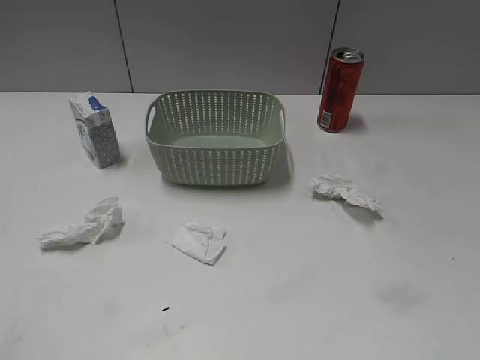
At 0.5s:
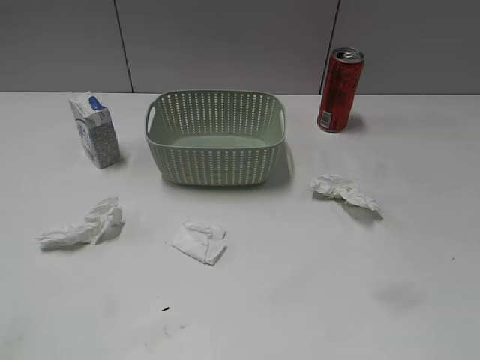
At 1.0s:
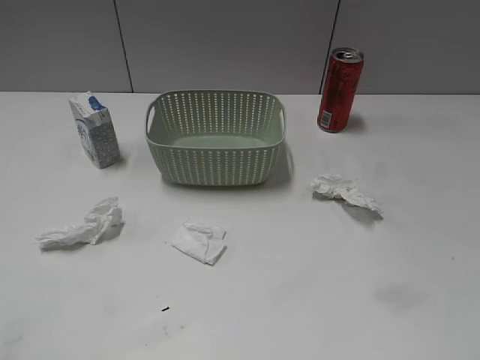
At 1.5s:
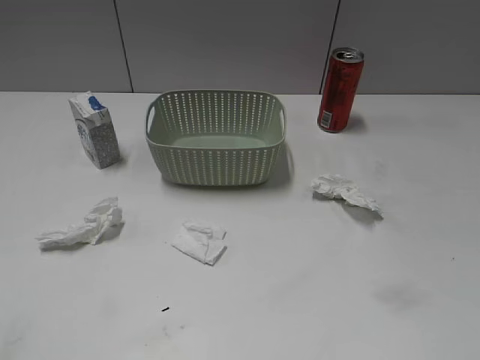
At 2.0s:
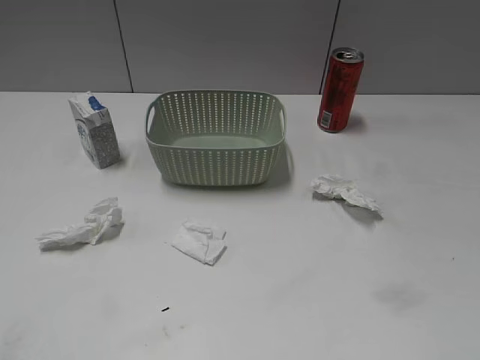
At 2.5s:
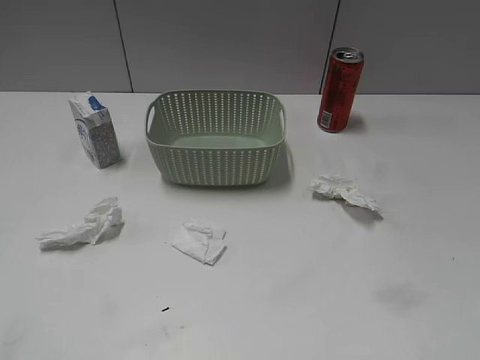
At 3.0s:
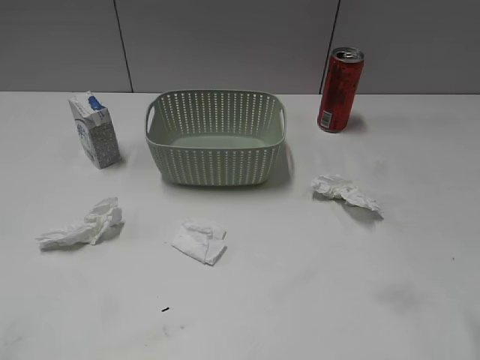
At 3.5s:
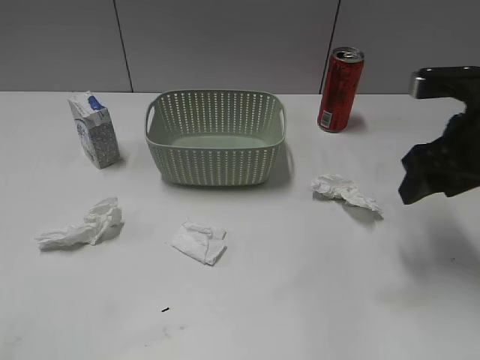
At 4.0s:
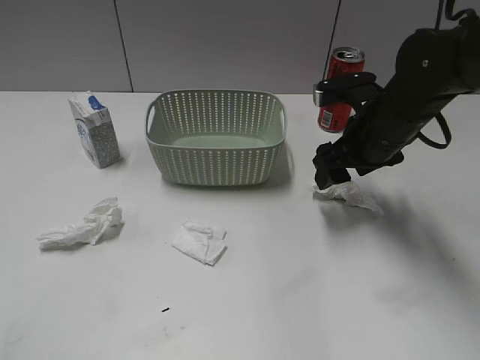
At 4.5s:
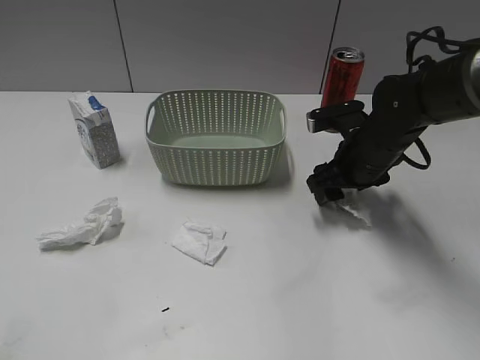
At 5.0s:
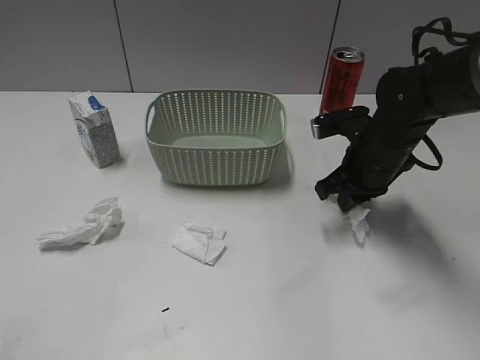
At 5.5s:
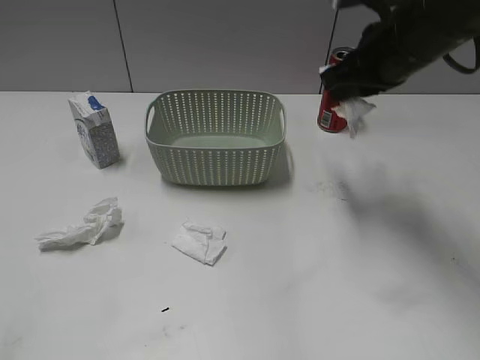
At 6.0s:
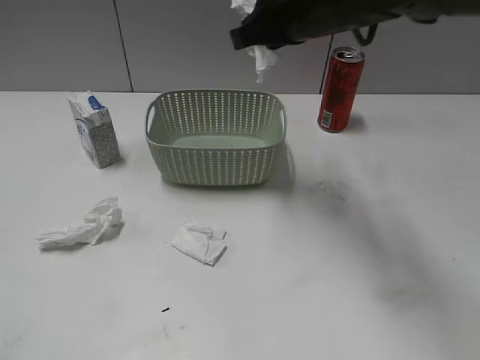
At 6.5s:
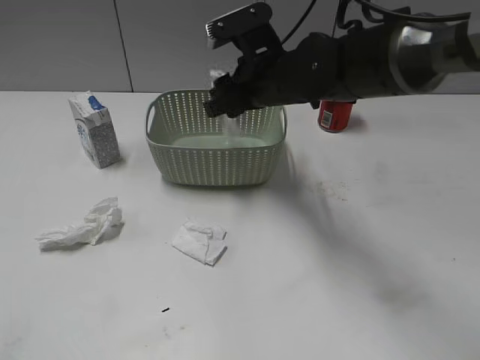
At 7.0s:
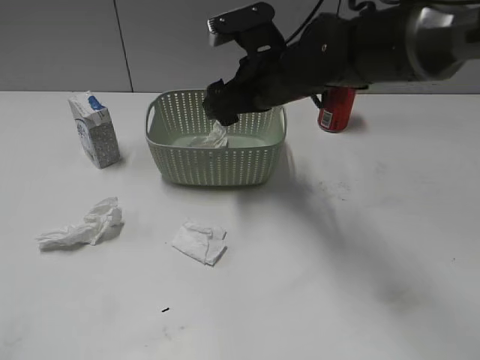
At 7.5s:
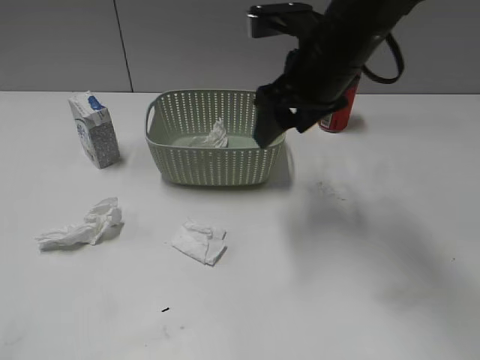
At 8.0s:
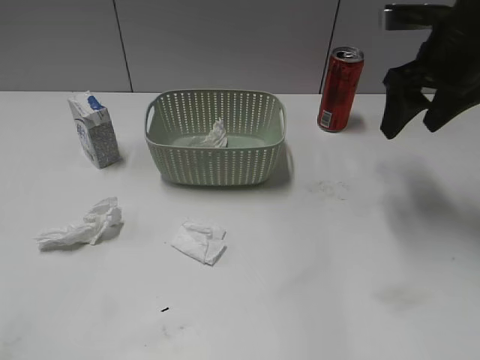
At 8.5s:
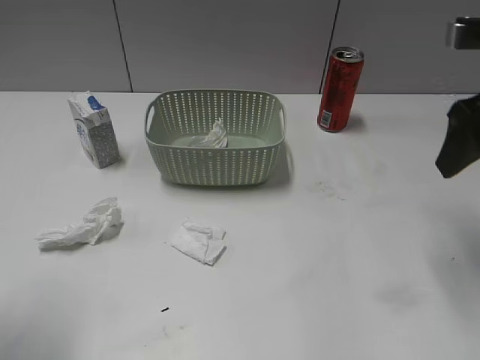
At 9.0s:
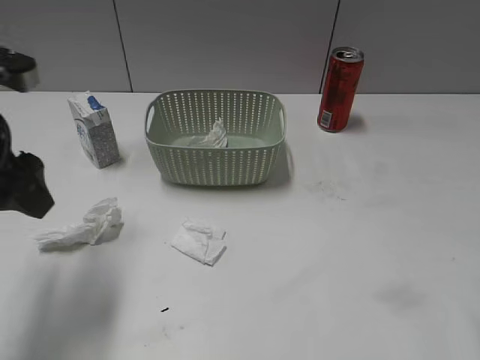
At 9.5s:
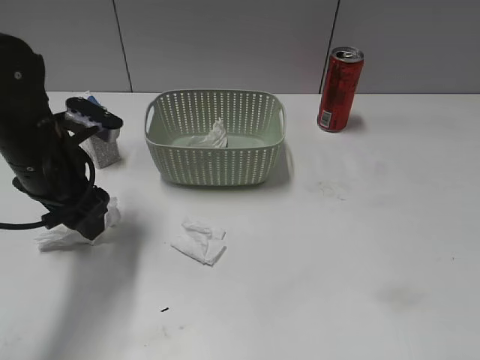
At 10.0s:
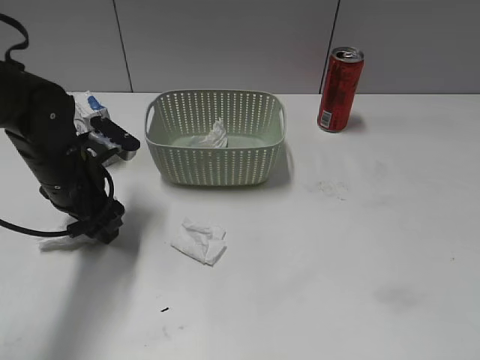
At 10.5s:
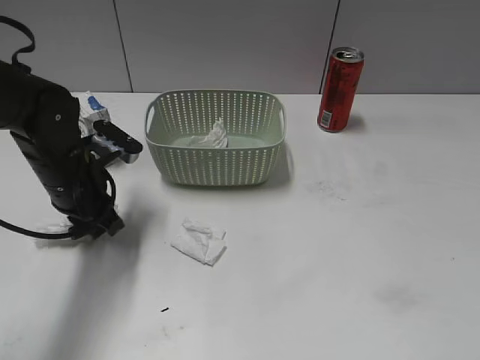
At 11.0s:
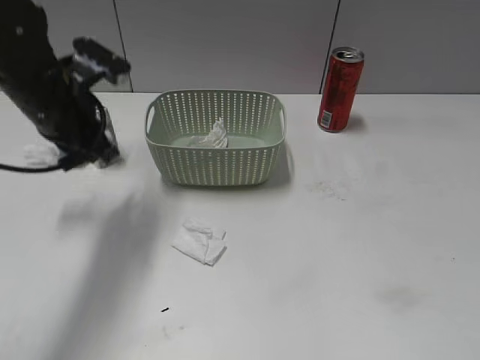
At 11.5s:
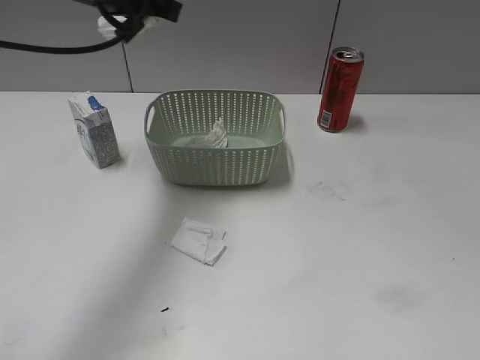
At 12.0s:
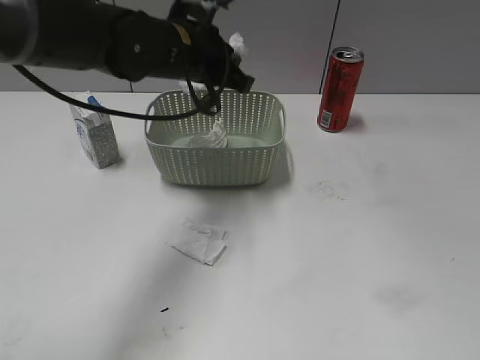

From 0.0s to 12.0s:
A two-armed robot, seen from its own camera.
Step, from 3.0s to 5.0s: Grasp the waste paper with right gripper.
Step, from 5.5s to 6.5s: Place the waste paper in the basket with right gripper.
Step, from 7.0s to 10.5s: Grasp the waste paper with left gripper.
From 2.0s to 4.0s: The right gripper is displaced forward by some 35 cm.
From 4.0s to 6.0s: The right gripper shifts roughly 15 cm upward and to the left, and closes.
From 6.0s to 8.0s: The right gripper shifts about 10 cm to the right, and opens.
From 8.0s to 10.0s: The right gripper goes approximately 35 cm backward. Meanwhile the left gripper moves forward, downward and to the right, approximately 35 cm.
From 10.0s to 12.0s: The left gripper moves to the right, upward and forward, some 20 cm, and closes its fingers.

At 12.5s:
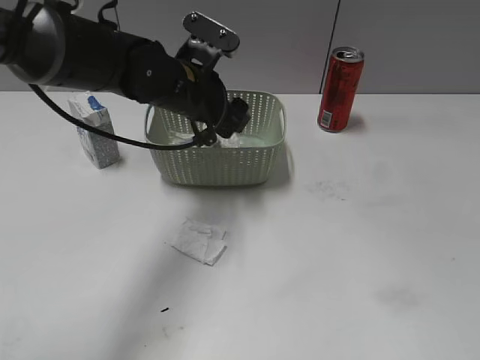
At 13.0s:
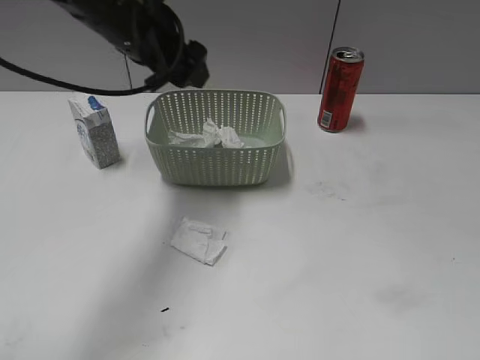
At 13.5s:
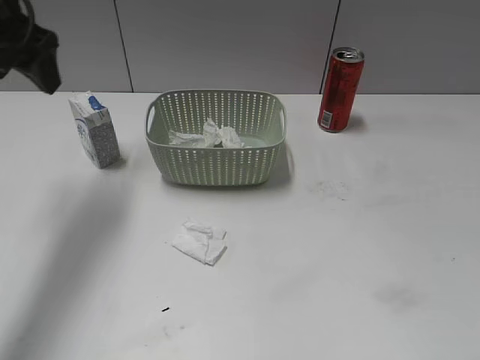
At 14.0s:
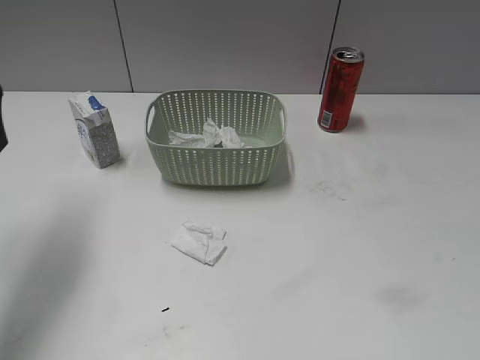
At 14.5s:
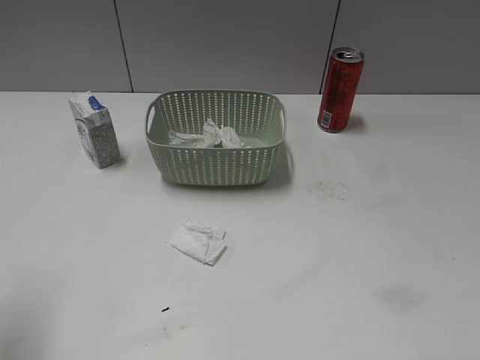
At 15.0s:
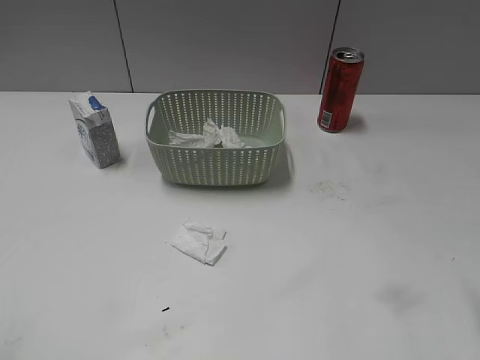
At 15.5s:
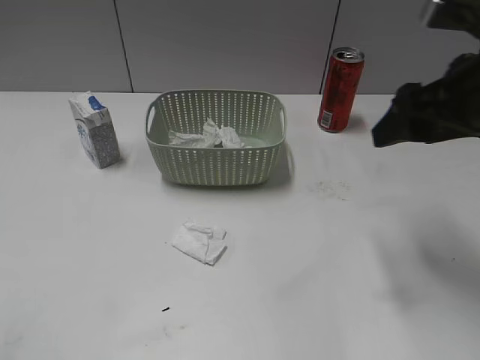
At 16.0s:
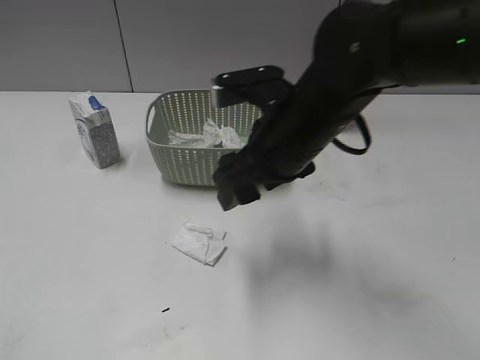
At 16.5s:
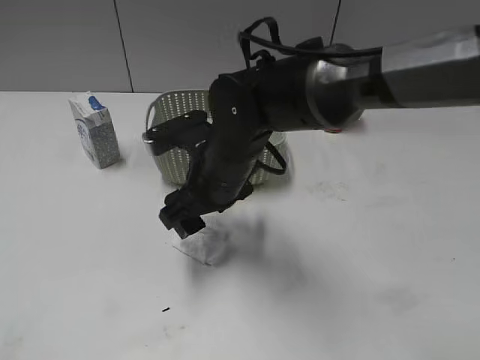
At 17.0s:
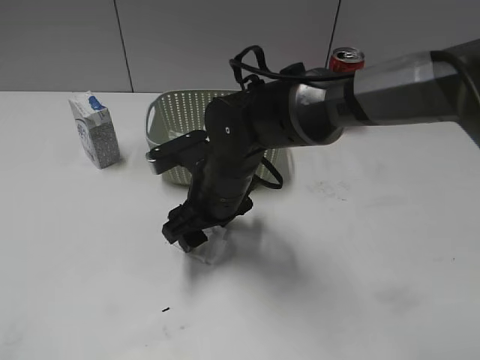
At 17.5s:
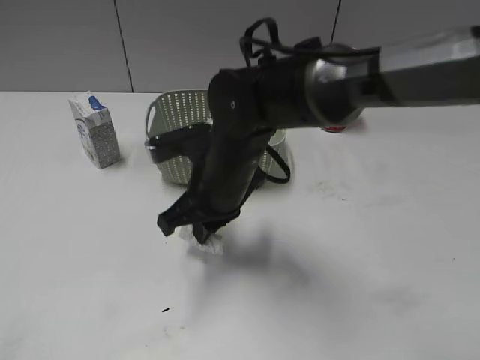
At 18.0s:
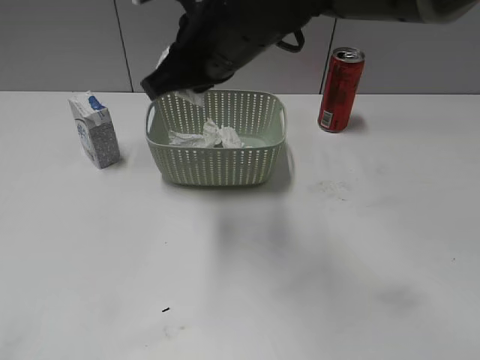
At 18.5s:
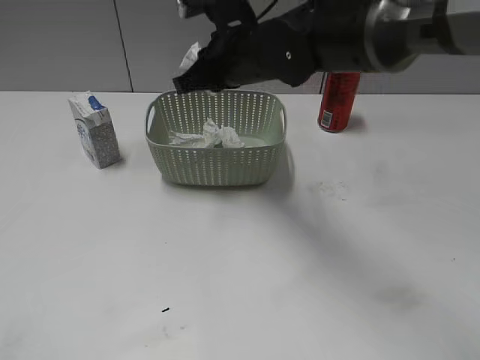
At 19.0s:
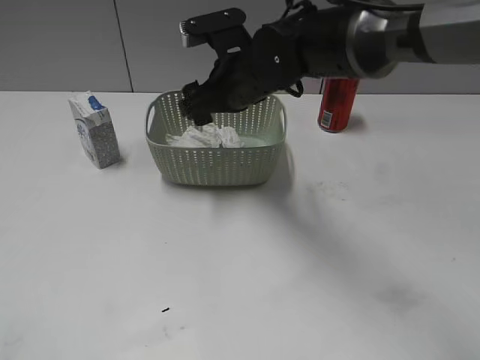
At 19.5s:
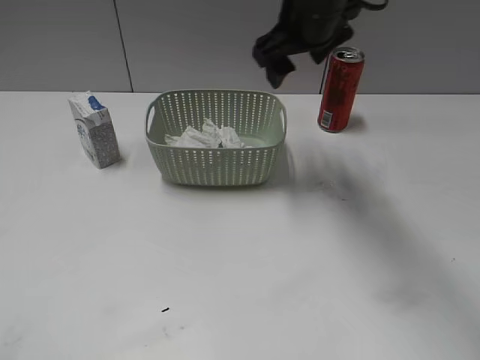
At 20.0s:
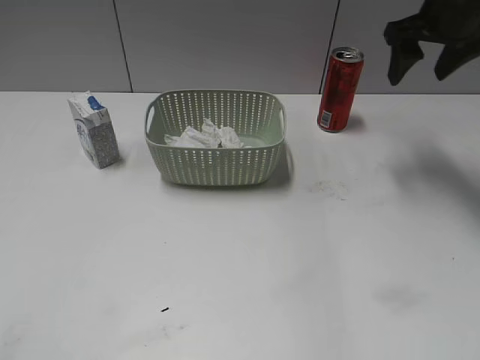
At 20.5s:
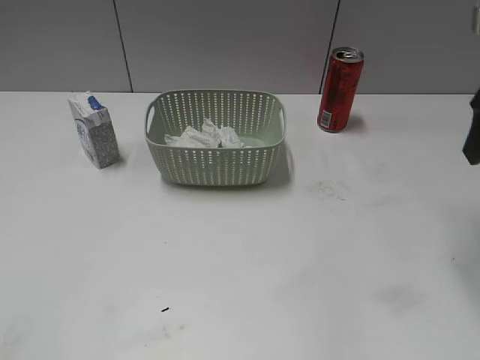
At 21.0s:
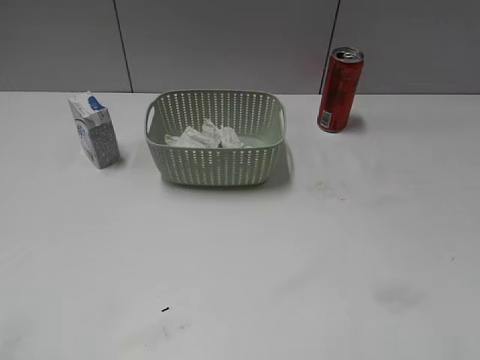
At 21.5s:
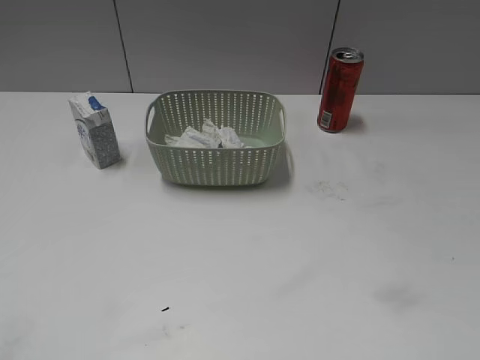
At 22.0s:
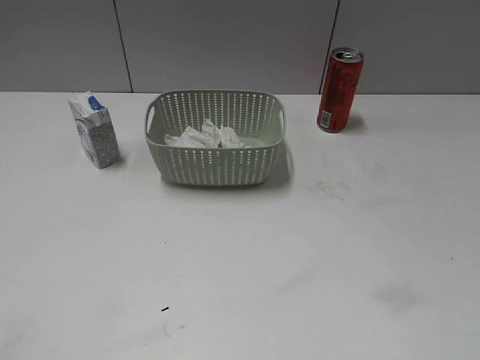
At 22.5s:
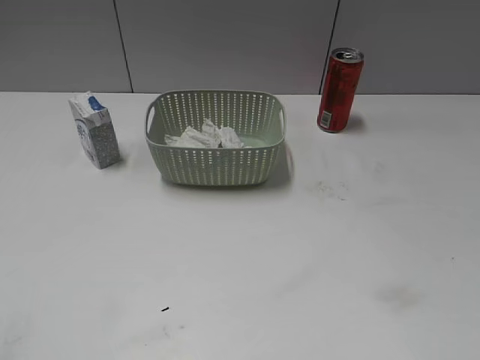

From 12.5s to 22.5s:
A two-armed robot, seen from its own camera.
Step, from 13.0s to 17.5s: Grasp the waste paper with right gripper.
Step, from 18.0s to 19.0s: Place the waste paper in the basket with right gripper.
From 12.5s to 14.5s: The left gripper travels to the left, backward and upward by about 35 cm.
From 14.5s to 16.5s: The left gripper heads backward, covering some 20 cm, while the right gripper goes roughly 40 cm to the left, forward and downward.
From 16.5s to 18.5s: The right gripper is displaced forward and upward by approximately 10 cm, and closes.
From 18.5s to 20.5s: The right gripper shifts approximately 25 cm to the right, and opens up.

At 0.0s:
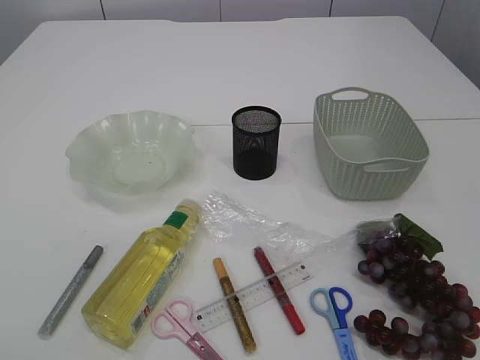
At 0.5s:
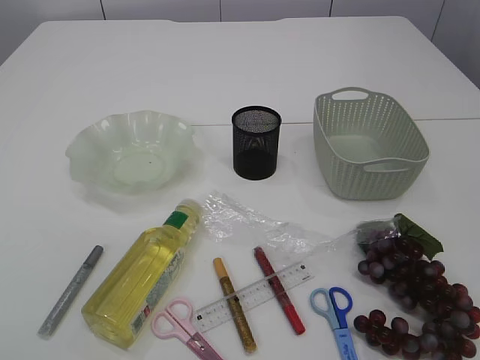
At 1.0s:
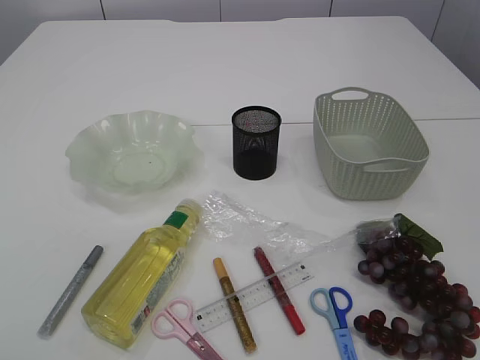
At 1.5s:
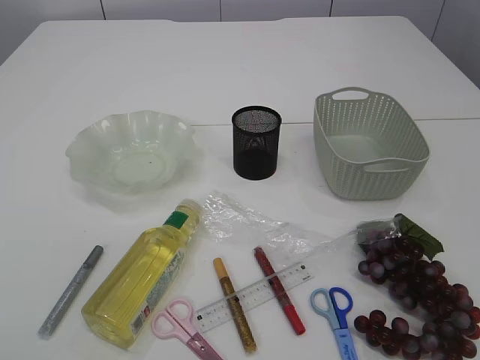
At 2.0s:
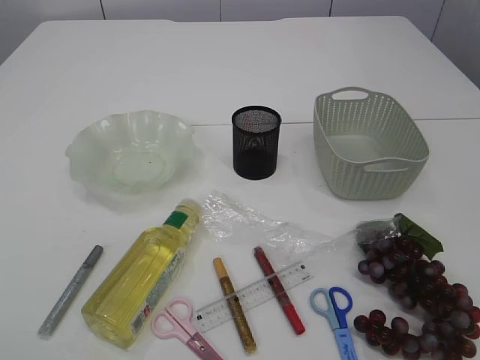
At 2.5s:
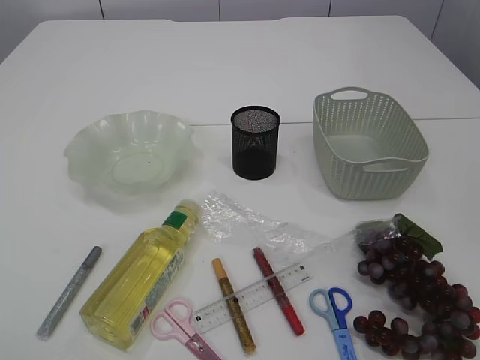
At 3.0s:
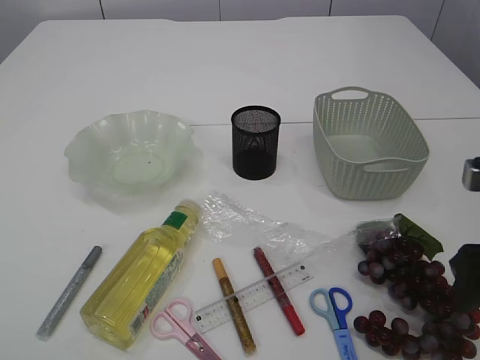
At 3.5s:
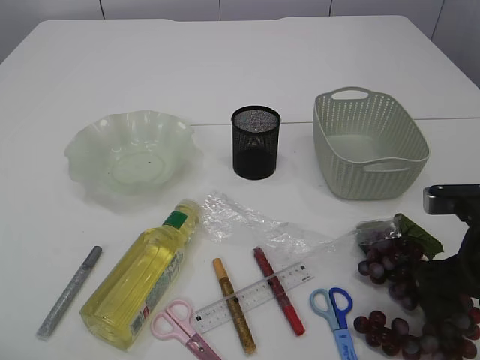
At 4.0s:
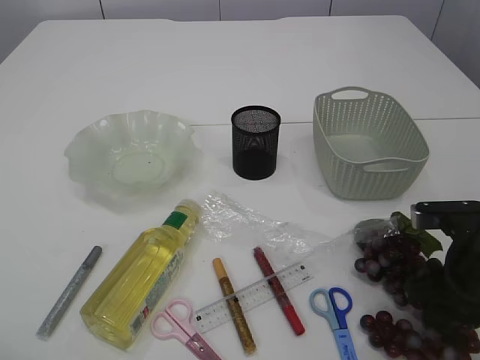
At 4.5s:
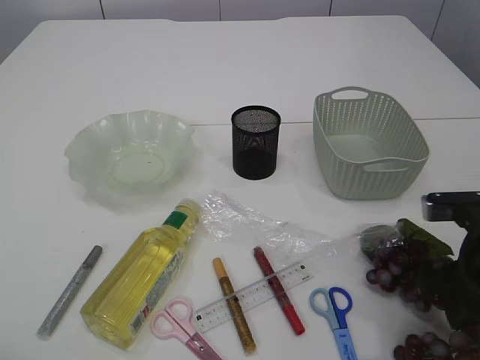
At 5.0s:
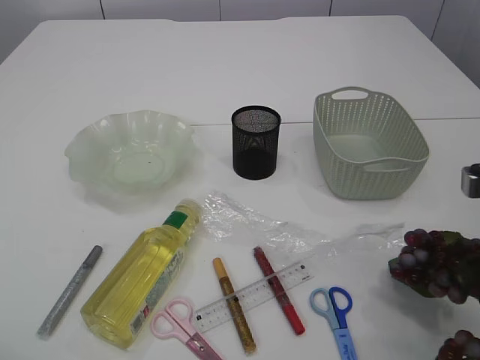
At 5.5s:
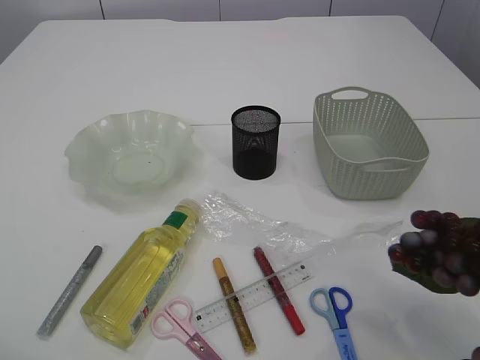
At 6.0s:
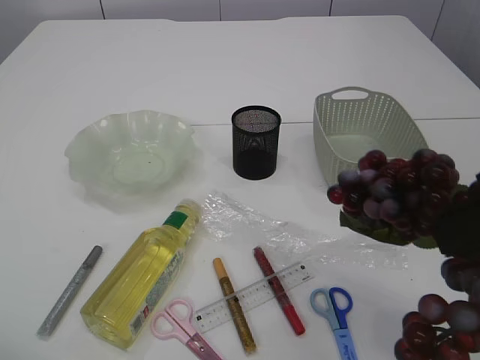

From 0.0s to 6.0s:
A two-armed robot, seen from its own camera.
Step, from 0.0s to 5.5s: Pick up the grapes.
From 2.0s to 4.0s: The right gripper is displaced forward and downward by some 30 cm.
From 4.0s to 6.0s: The right gripper travels upward by about 20 cm, and closes its fingers.
